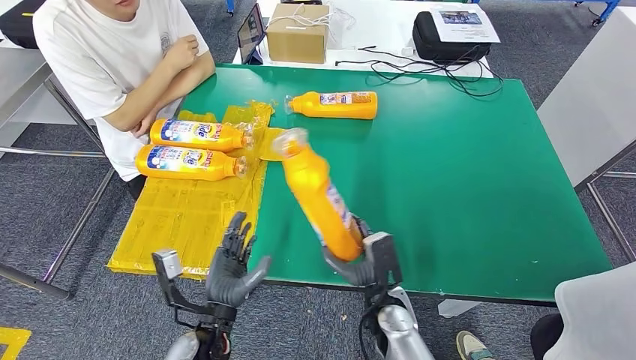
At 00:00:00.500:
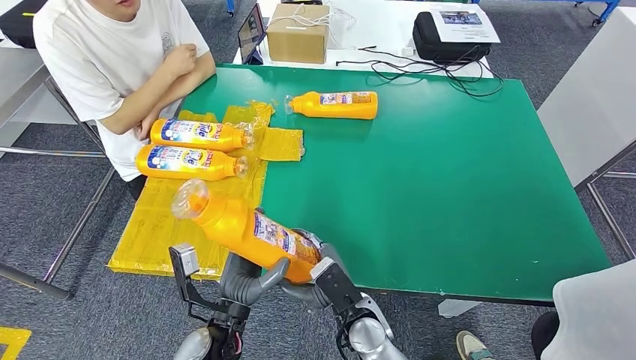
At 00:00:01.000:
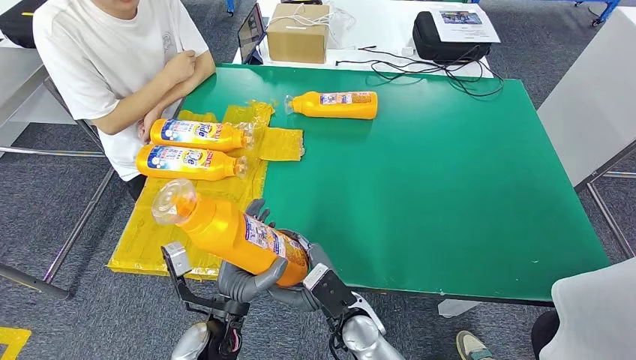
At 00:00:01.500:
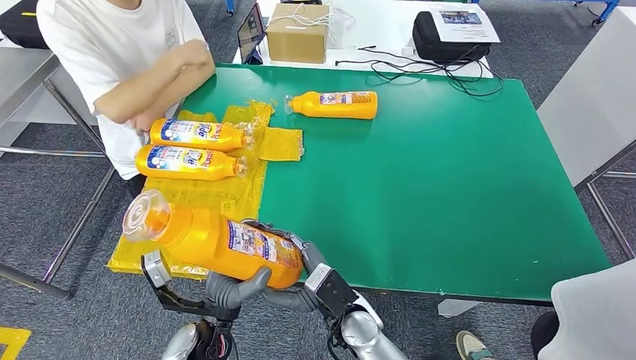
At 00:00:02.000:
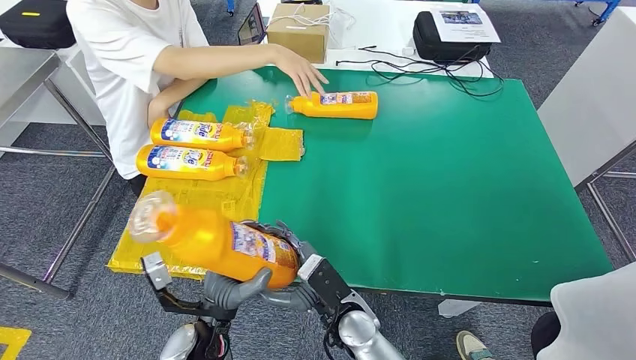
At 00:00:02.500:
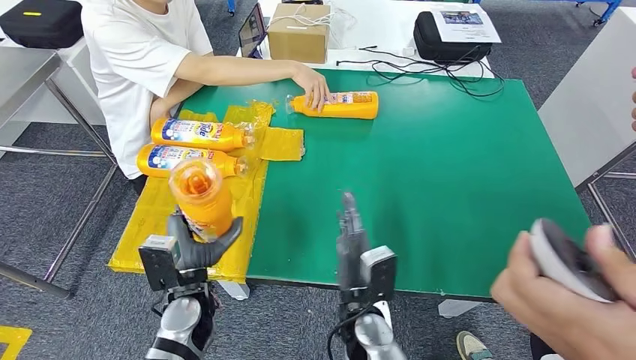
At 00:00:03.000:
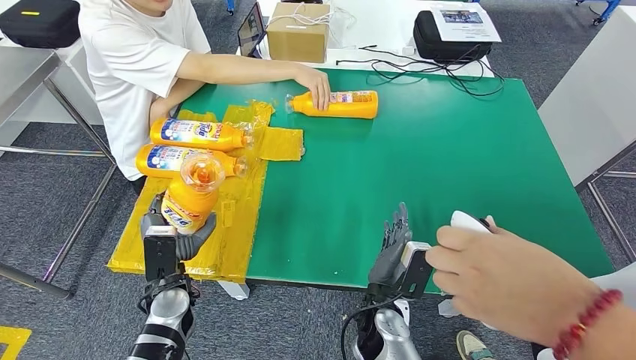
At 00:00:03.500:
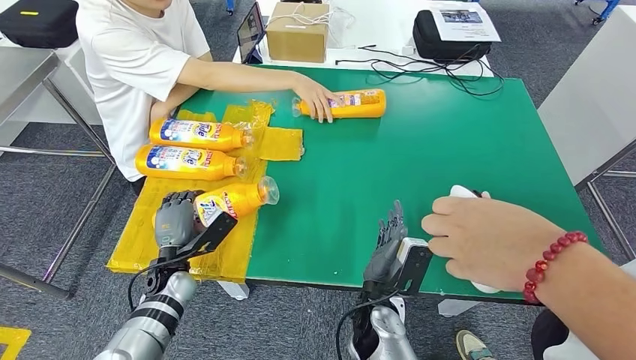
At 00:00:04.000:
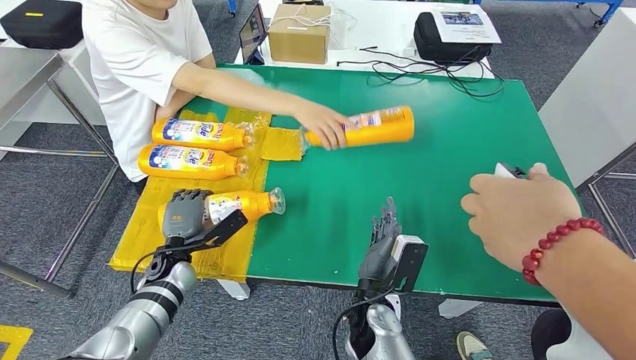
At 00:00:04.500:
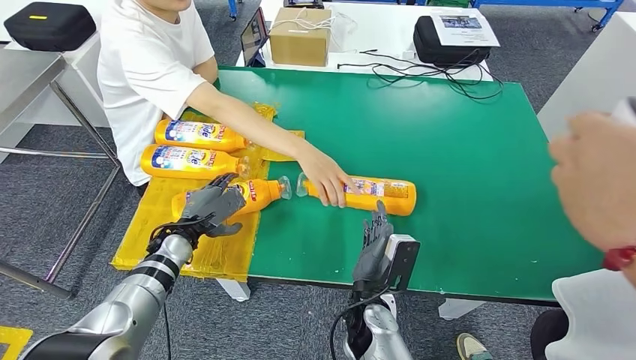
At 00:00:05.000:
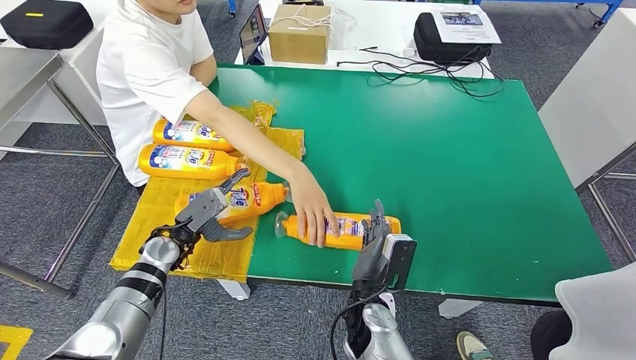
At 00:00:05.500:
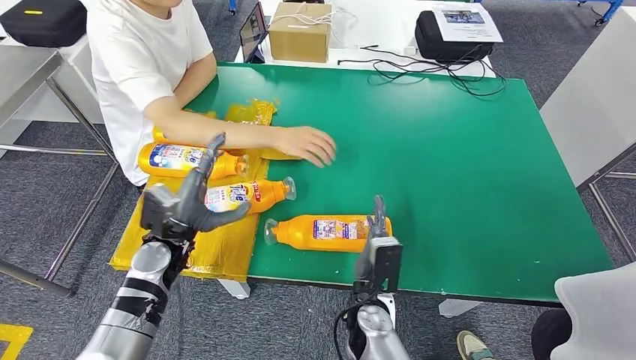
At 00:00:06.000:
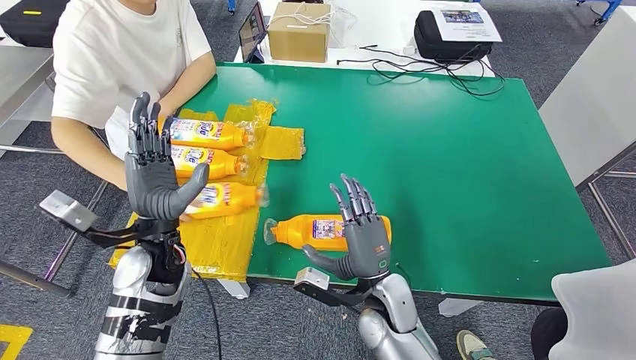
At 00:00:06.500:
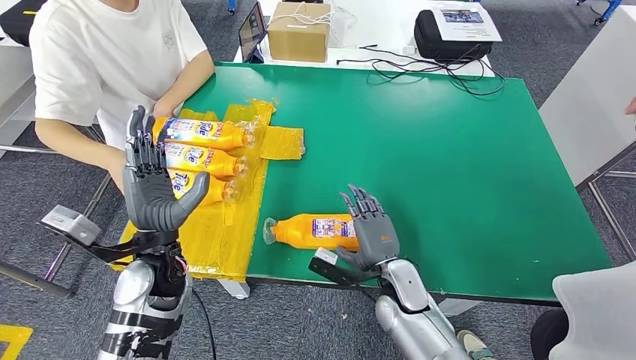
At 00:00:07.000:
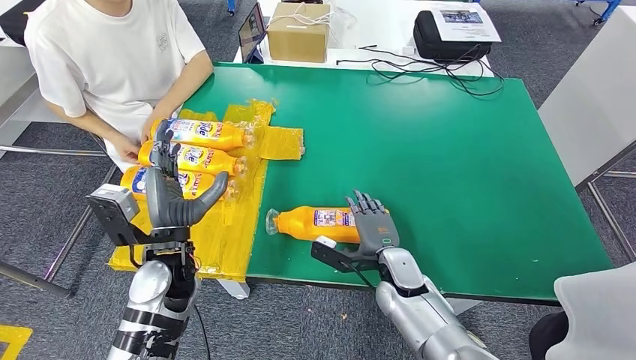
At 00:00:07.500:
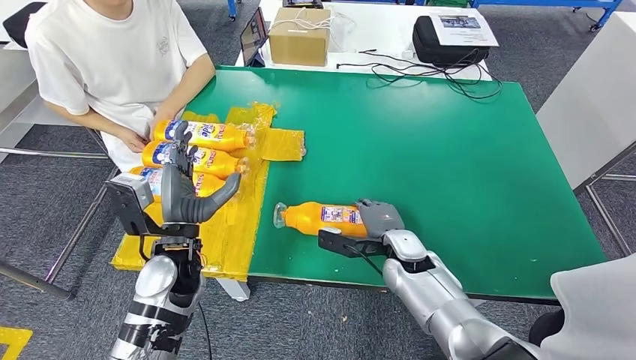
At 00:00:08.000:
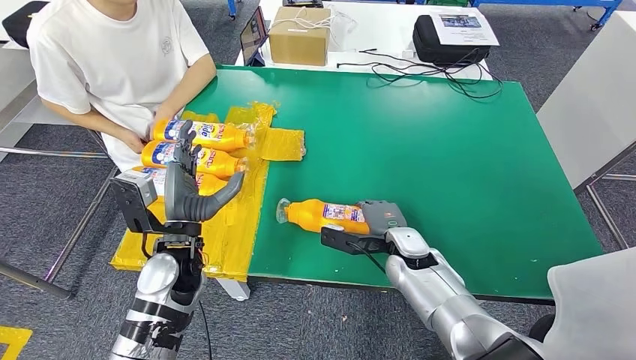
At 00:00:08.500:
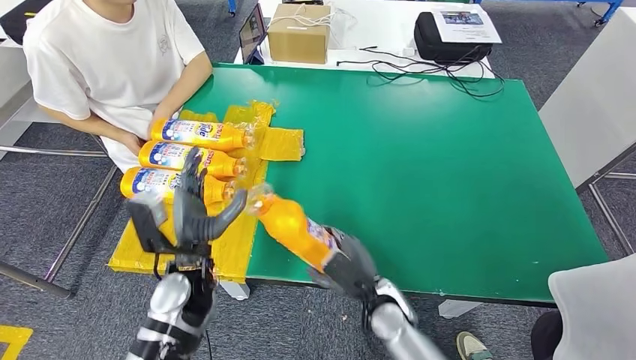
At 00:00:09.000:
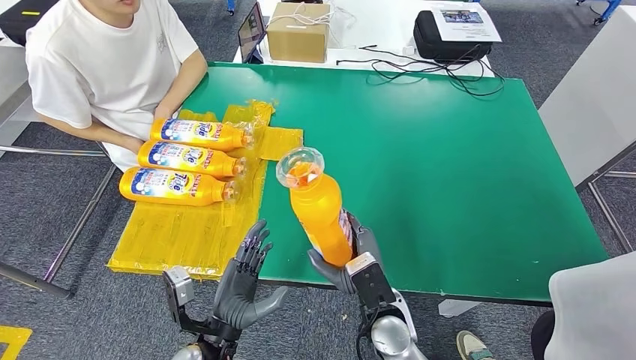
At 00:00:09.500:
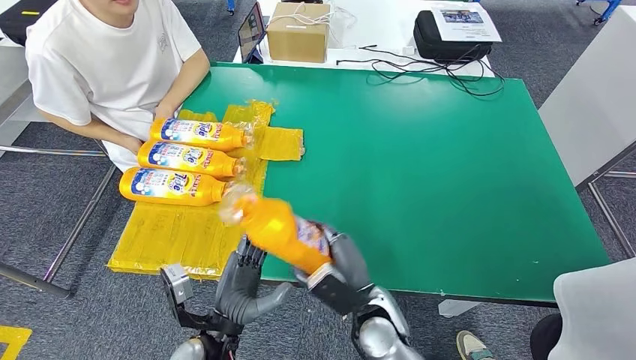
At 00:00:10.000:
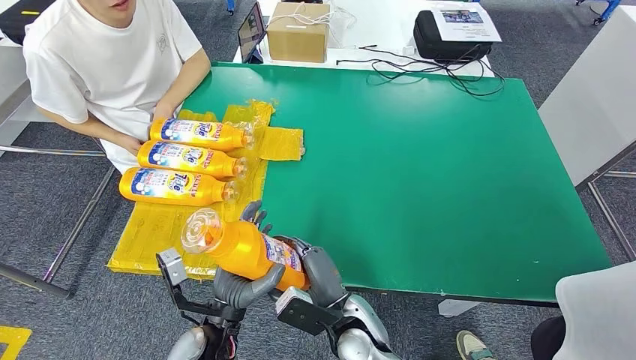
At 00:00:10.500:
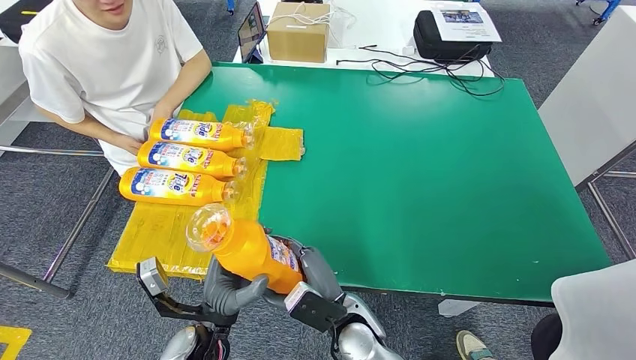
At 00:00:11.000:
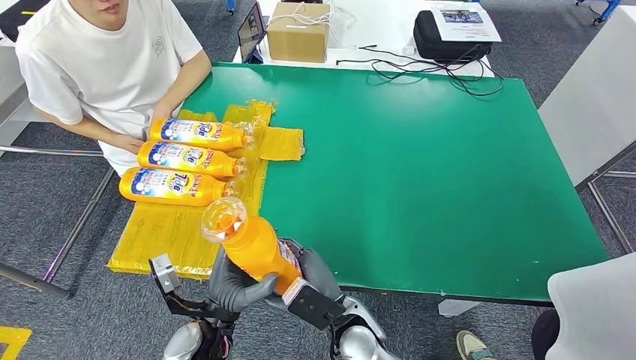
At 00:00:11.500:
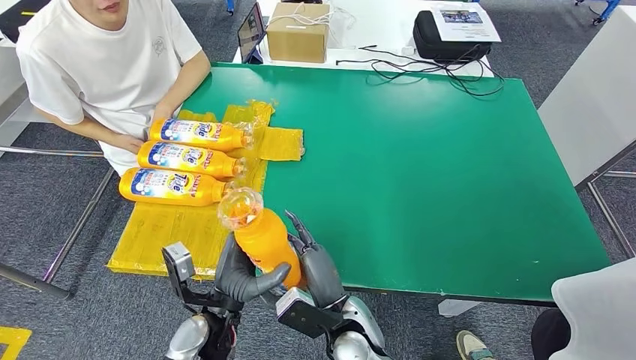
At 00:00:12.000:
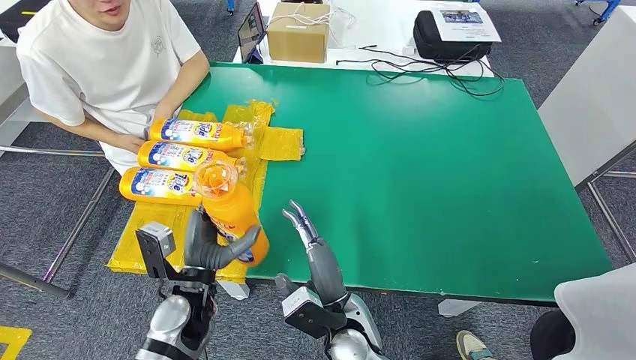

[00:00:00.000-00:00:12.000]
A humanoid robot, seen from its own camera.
Step, 00:00:00.500 to 00:00:05.500: Flip the fast-moving consumer goods bottle to the front side.
Step, 00:00:06.000 to 00:00:09.500: Pick up the fast-moving consumer goods bottle from the table.
00:00:00.000 to 00:00:02.000: The right hand shifts roughly 10 cm to the left.
00:00:10.000 to 00:00:12.000: The left hand heads forward, covering roughly 5 cm.

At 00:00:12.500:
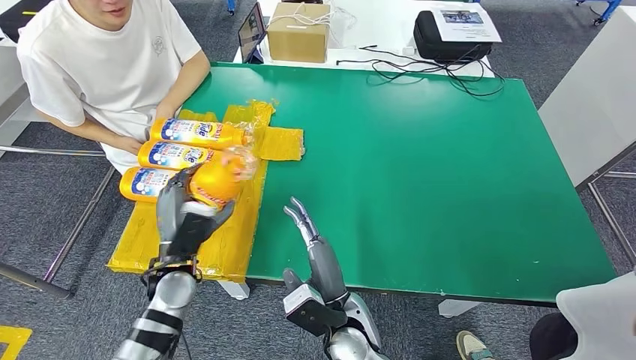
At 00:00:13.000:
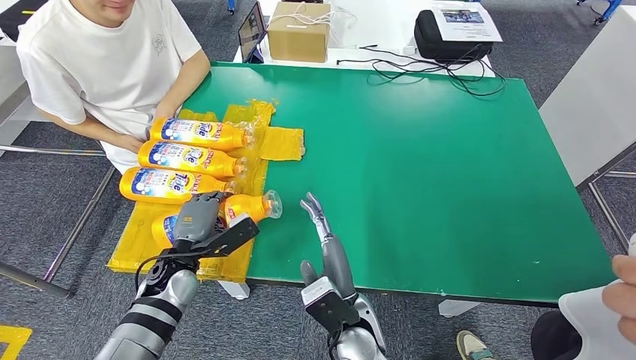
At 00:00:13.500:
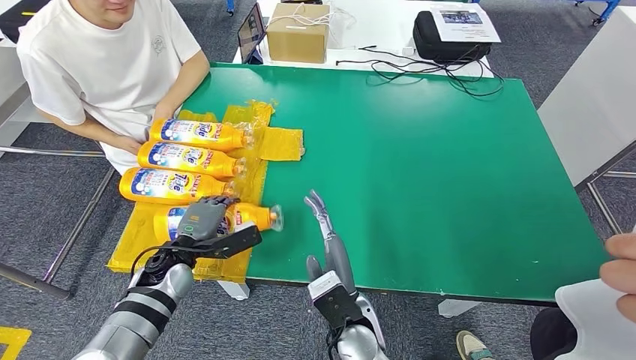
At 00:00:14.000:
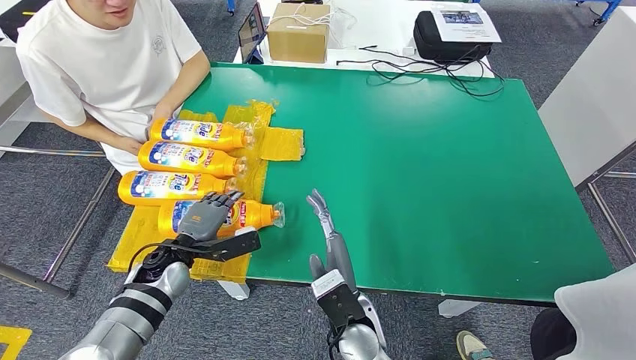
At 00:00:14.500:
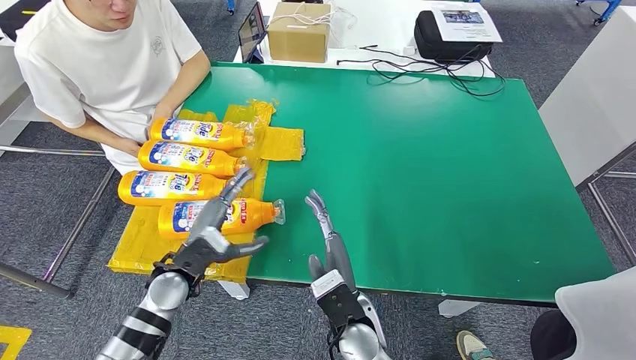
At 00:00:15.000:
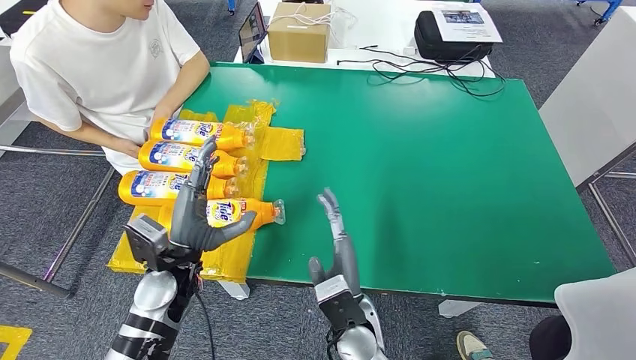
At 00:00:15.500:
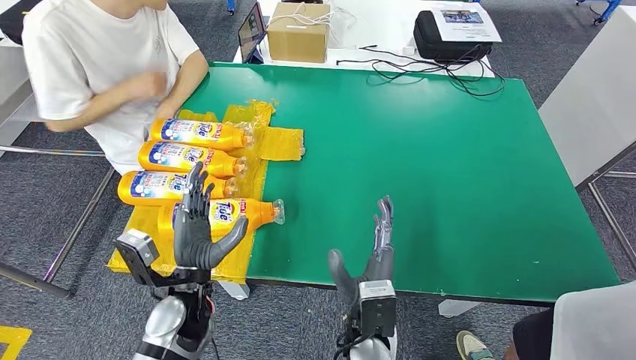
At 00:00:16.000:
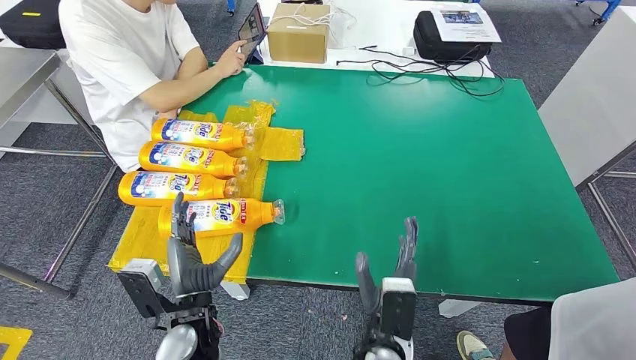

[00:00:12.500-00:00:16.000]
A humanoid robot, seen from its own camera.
Step, 00:00:12.500 to 00:00:16.000: Flip the fast-moving consumer goods bottle to the front side.
00:00:14.500 to 00:00:16.000: The right hand changes place by about 5 cm, while the left hand goes approximately 10 cm backward and to the right.
